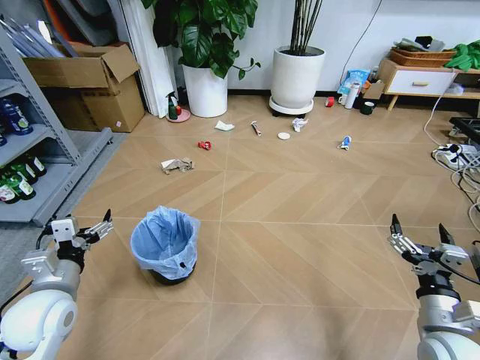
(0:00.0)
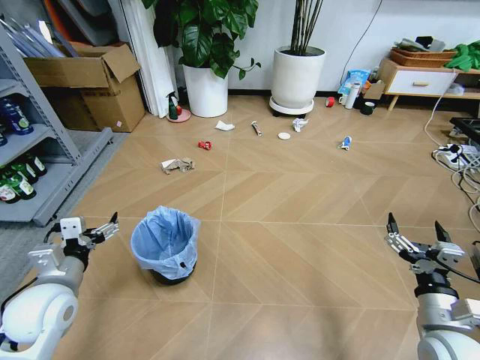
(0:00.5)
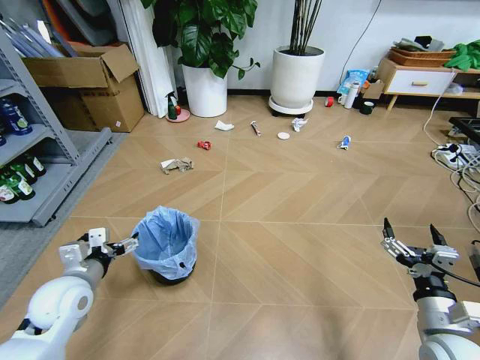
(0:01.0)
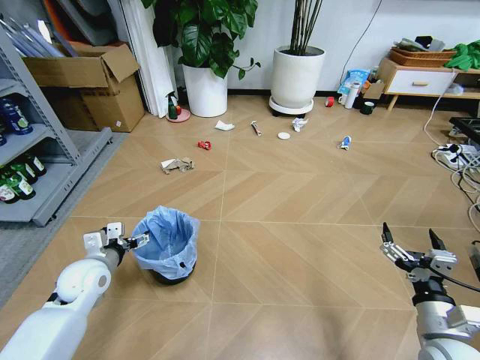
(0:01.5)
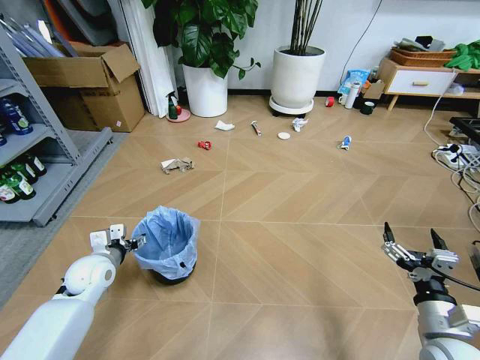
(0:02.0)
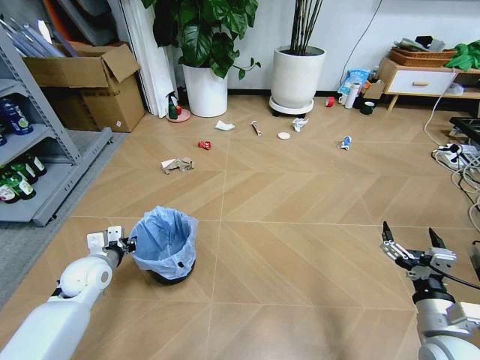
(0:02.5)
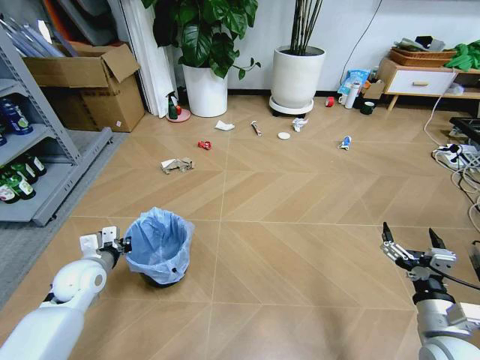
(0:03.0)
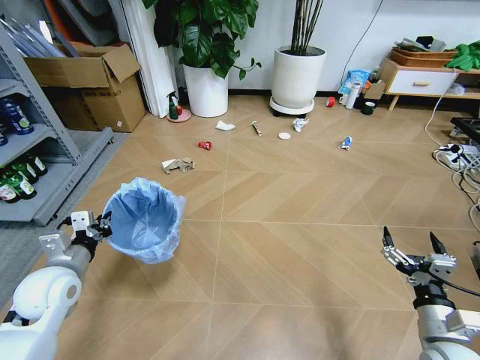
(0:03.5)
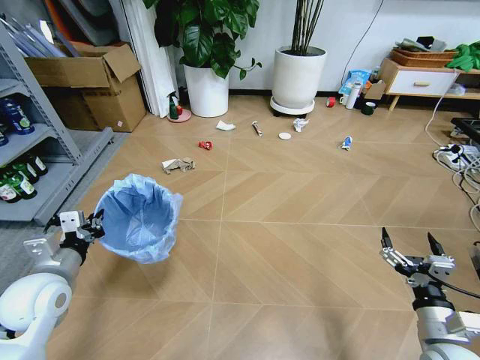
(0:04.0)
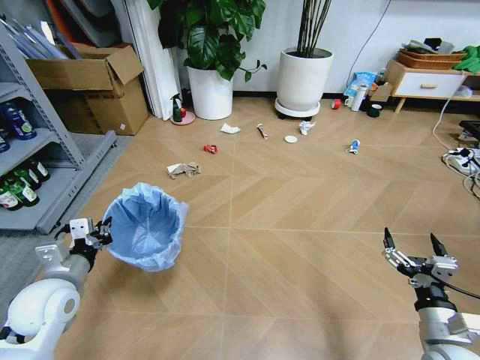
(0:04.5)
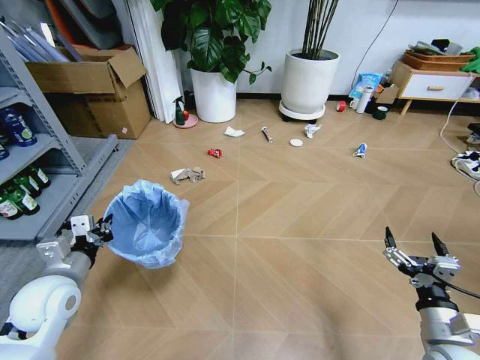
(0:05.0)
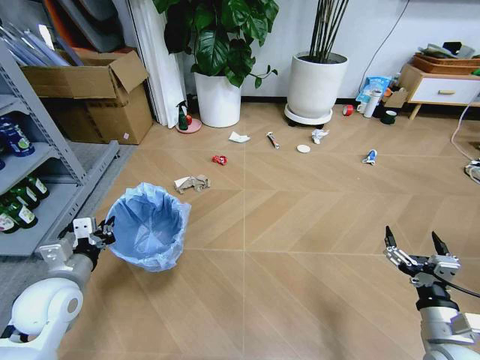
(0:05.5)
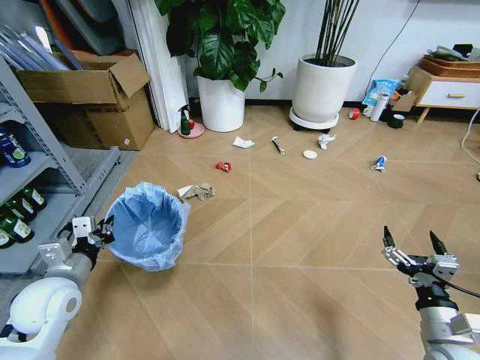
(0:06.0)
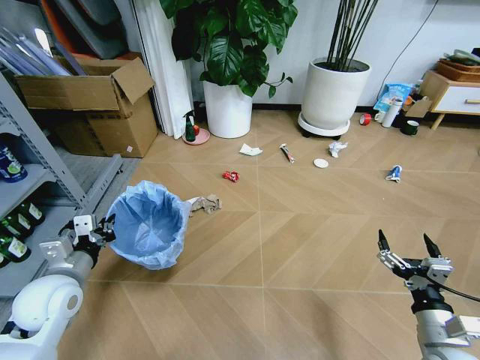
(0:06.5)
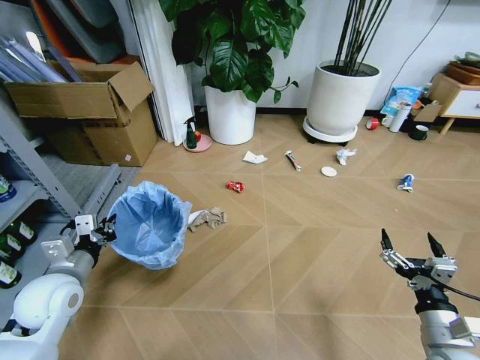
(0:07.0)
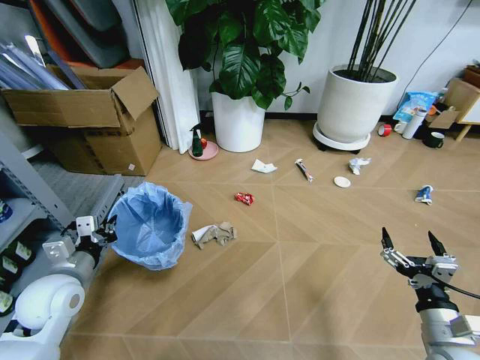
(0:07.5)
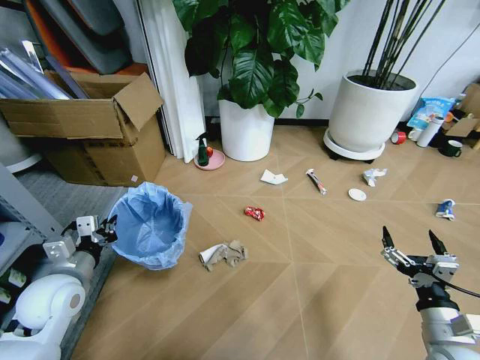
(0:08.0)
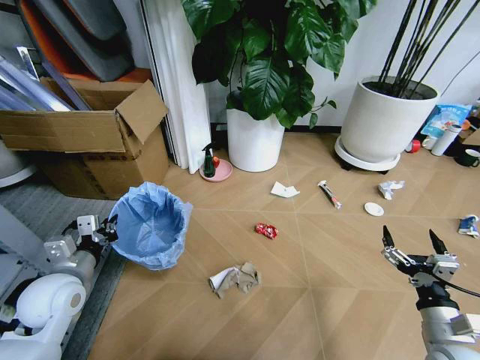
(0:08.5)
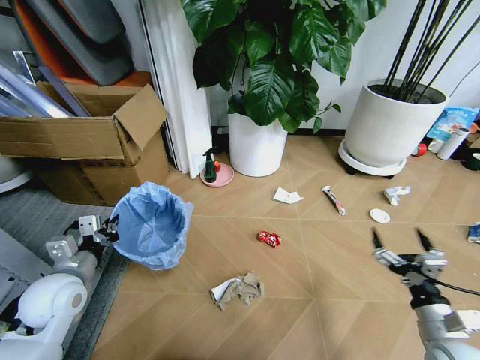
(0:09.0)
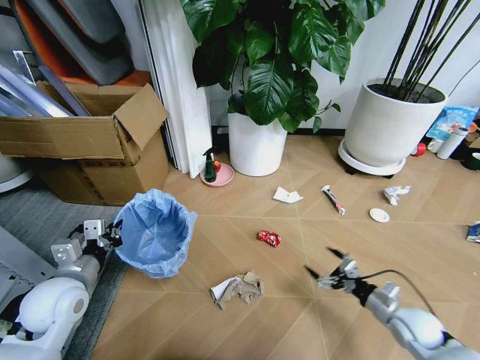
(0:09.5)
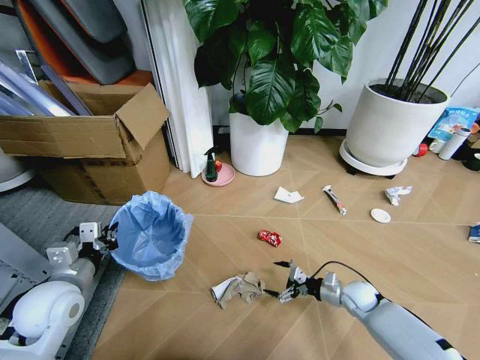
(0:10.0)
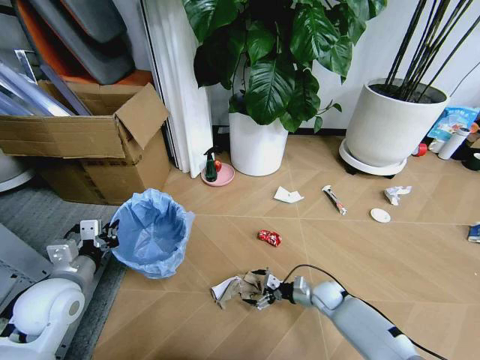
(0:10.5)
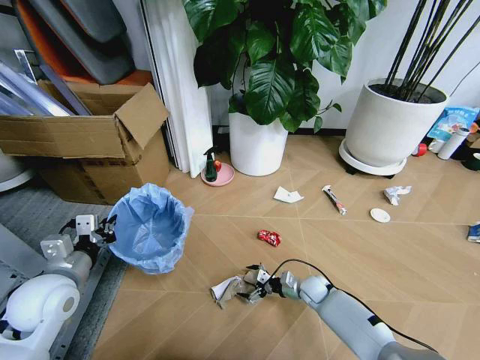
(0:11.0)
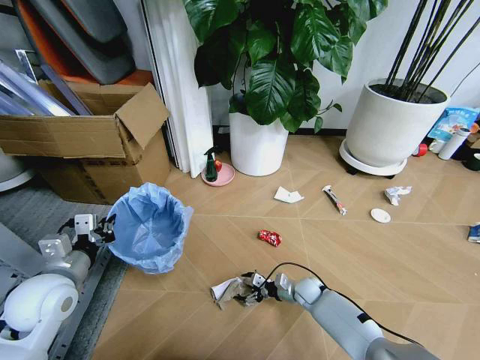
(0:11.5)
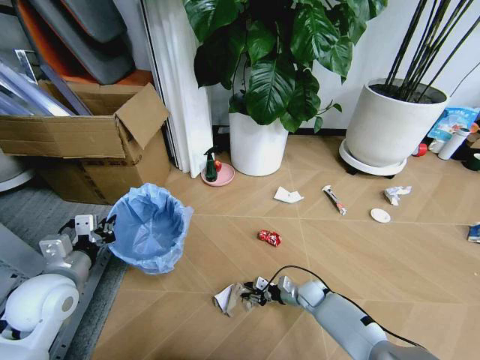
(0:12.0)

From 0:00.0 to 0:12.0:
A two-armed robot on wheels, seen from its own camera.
Task of the whole recording: Pick up the trash bin and place the garbage on the floor into it.
From 0:02.0 to 0:04.0: The left gripper travels upward and backward by approximately 15 cm, and closes.
From 0:08.0 to 0:10.0: The right gripper moves forward and downward, some 25 cm.
From 0:10.0 to 0:12.0: The right gripper heads to the left and downward, covering approximately 15 cm, and closes.

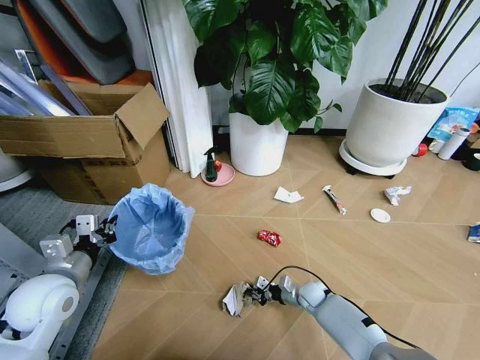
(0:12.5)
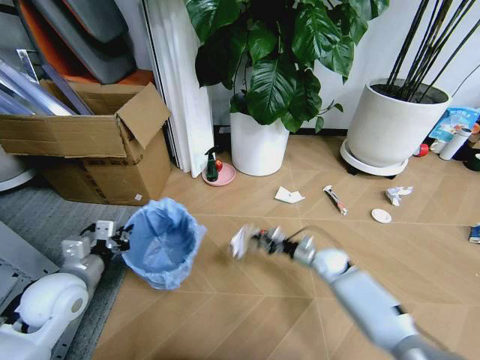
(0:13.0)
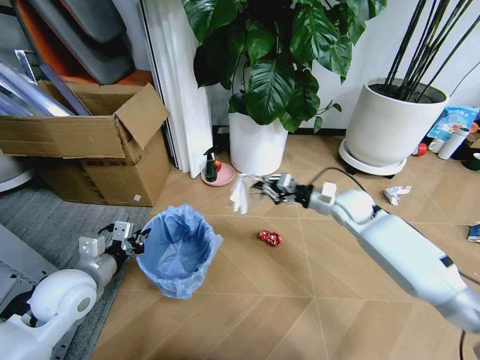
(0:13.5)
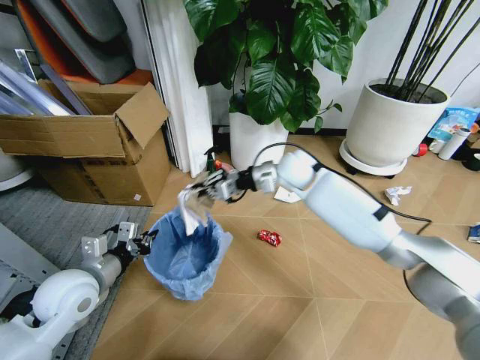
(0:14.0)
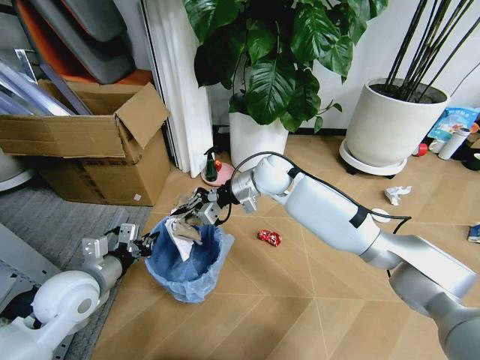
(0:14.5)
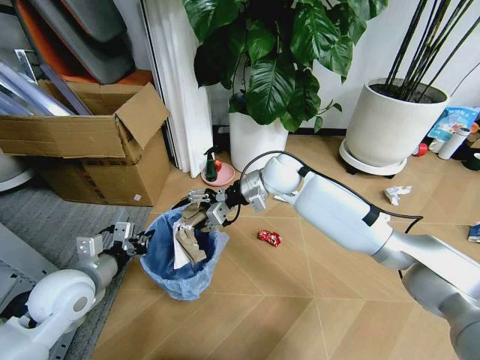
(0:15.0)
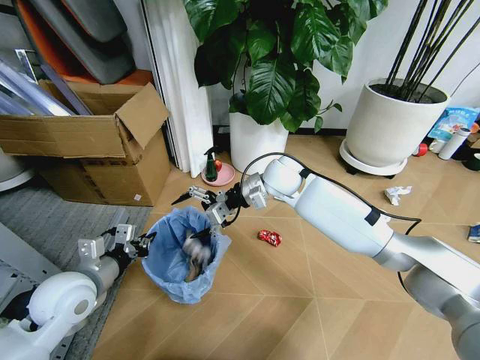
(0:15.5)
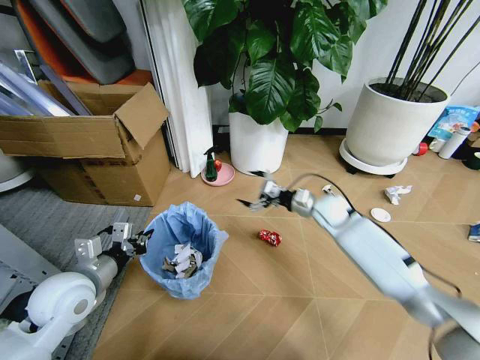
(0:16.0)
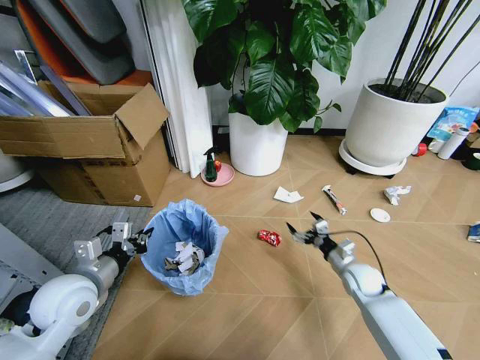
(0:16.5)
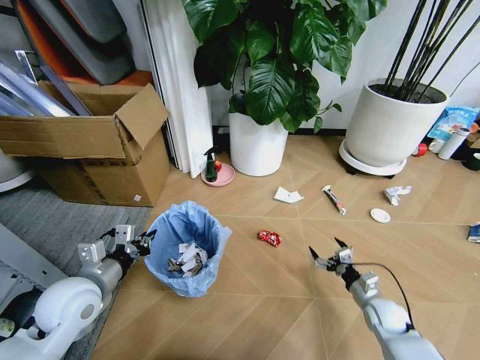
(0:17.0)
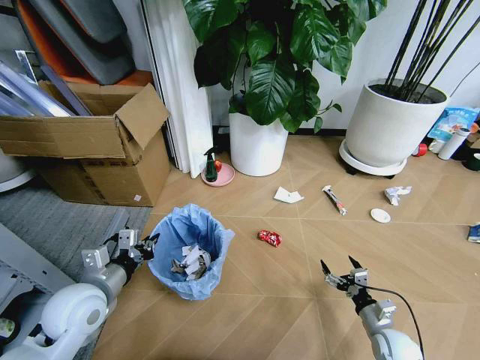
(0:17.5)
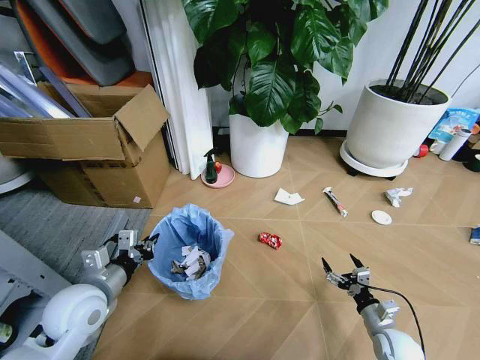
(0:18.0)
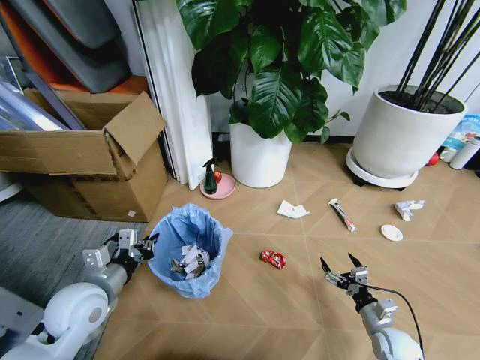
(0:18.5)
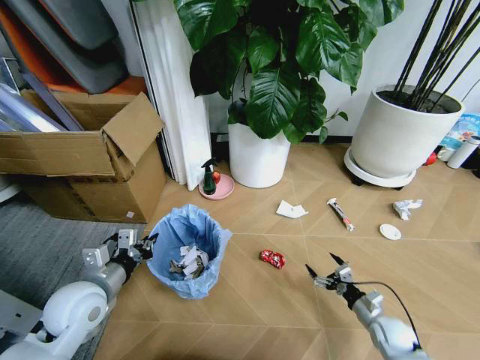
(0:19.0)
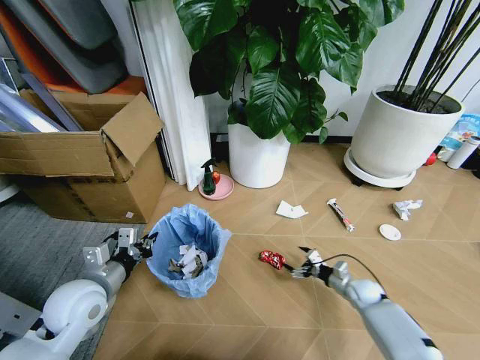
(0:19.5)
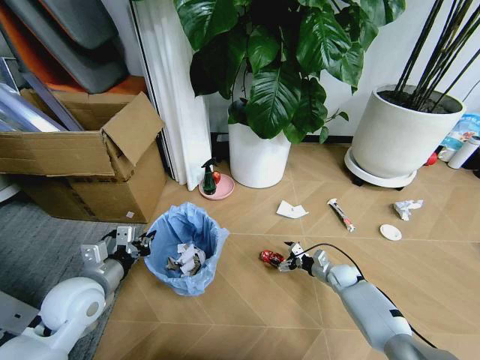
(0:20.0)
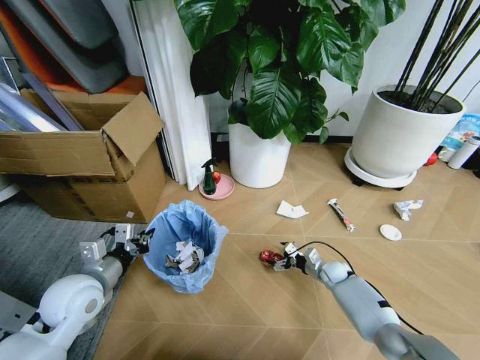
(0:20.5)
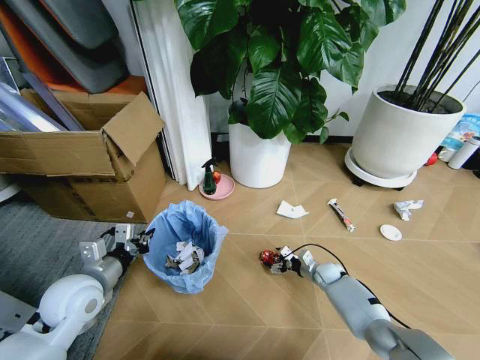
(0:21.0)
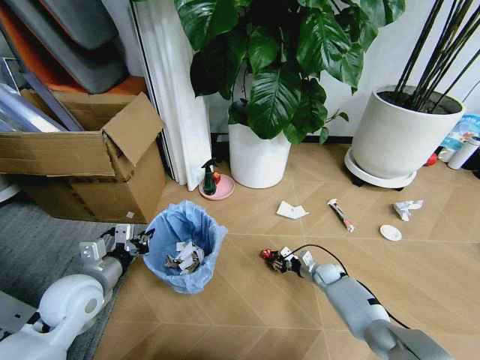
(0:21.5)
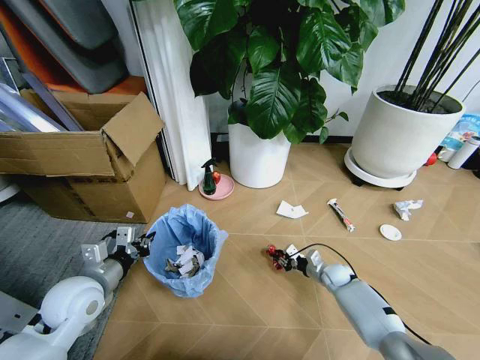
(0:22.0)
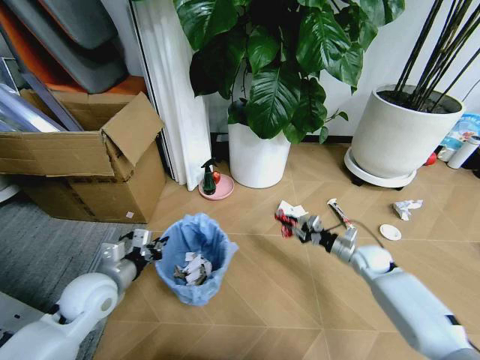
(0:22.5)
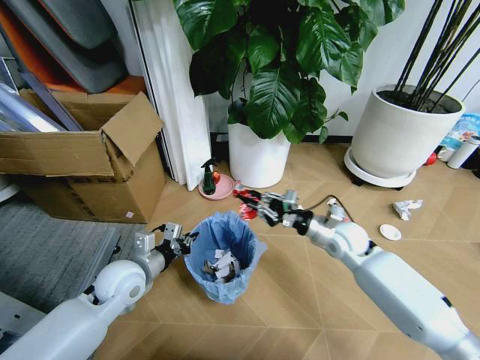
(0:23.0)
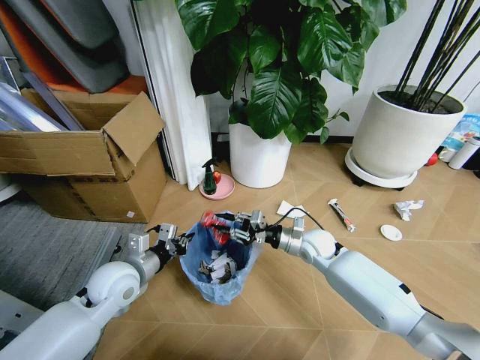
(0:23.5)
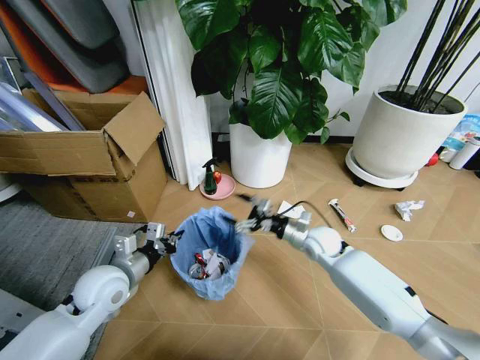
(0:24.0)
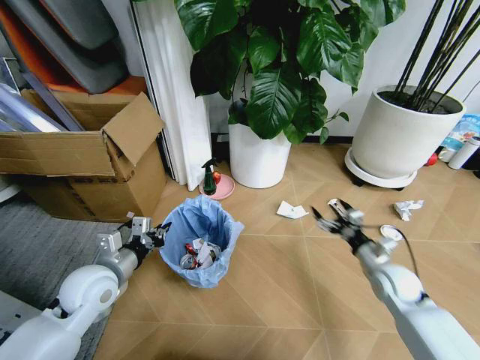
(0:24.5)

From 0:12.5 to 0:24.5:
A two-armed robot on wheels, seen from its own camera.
Task of the whole recording: Pick up the trash bin and place the garbage on the floor into it.
From 0:12.5 to 0:14.5: The right gripper is displaced upward by about 40 cm.
From 0:14.5 to 0:16.5: The right gripper moves downward, to the right and backward, approximately 40 cm, and opens its fingers.
From 0:16.5 to 0:18.5: The right gripper moves backward and downward, roughly 15 cm.
From 0:18.5 to 0:20.5: The right gripper travels forward by approximately 20 cm.
From 0:20.5 to 0:22.5: The right gripper moves upward and to the right, some 10 cm, and closes.
From 0:22.5 to 0:24.5: The right gripper heads backward and upward, covering about 10 cm, goes to the left and returns, about 15 cm each way, and opens its fingers.

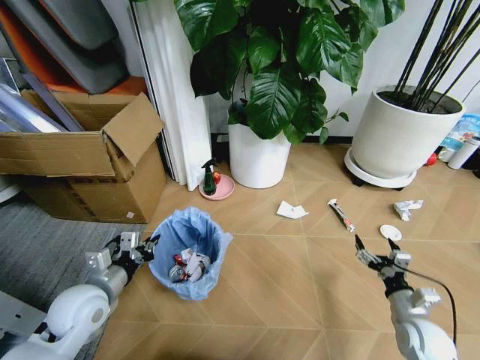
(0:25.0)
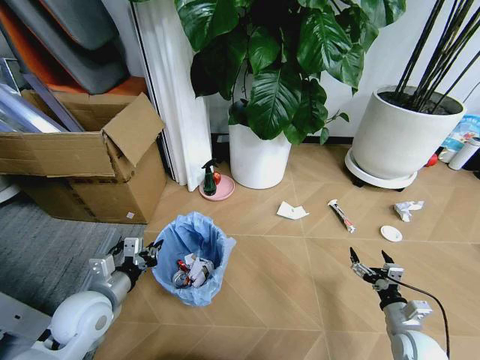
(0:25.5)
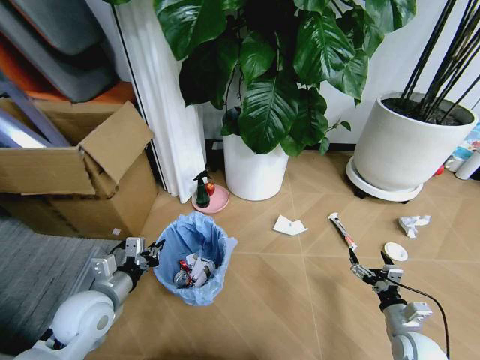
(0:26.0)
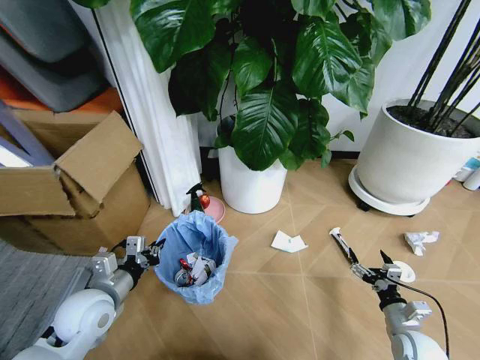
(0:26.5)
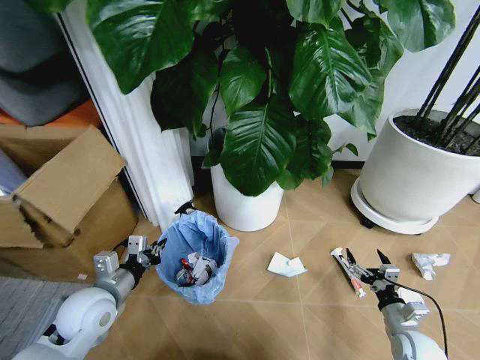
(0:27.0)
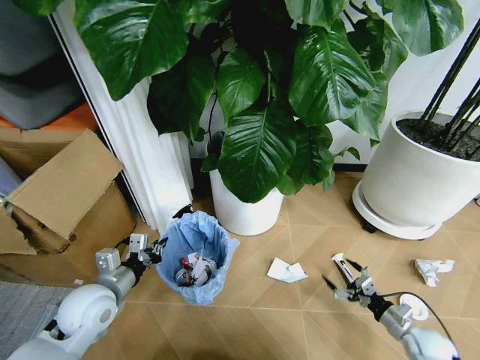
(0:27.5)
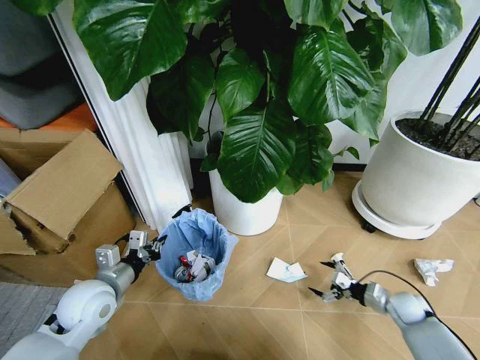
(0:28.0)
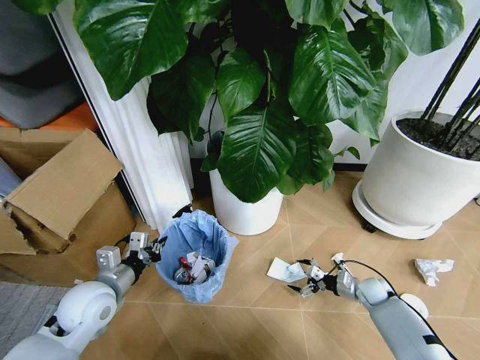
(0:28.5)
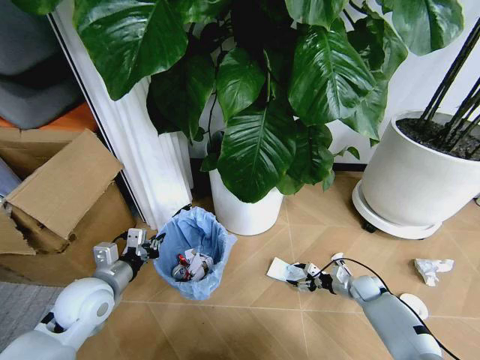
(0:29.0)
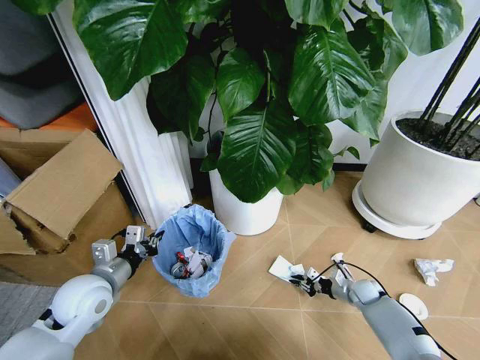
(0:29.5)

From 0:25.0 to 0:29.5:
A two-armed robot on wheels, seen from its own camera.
Task of the whole recording: Pick up the trash bin and place the garbage on the floor into it.
From 0:27.0 to 0:29.5: The right gripper shifts some 20 cm forward and downward, and closes.
